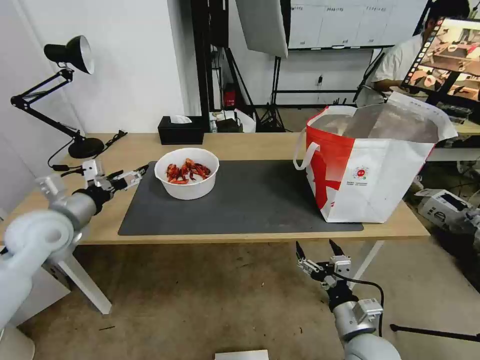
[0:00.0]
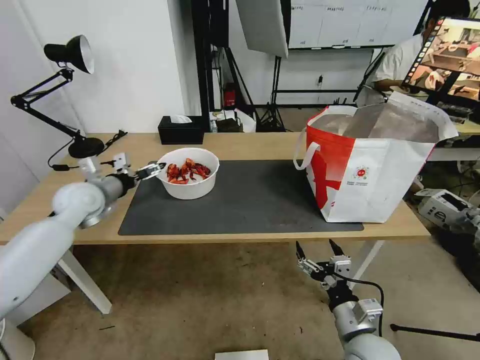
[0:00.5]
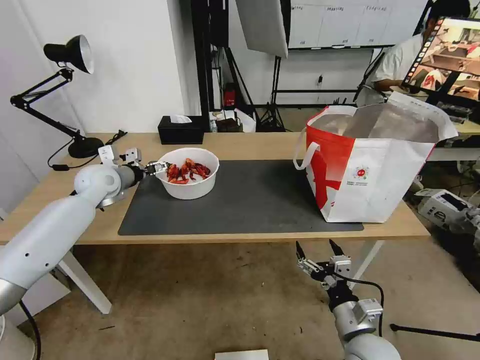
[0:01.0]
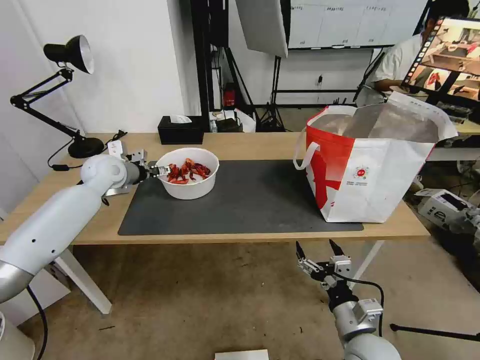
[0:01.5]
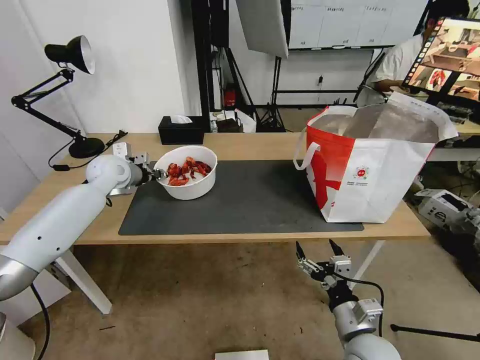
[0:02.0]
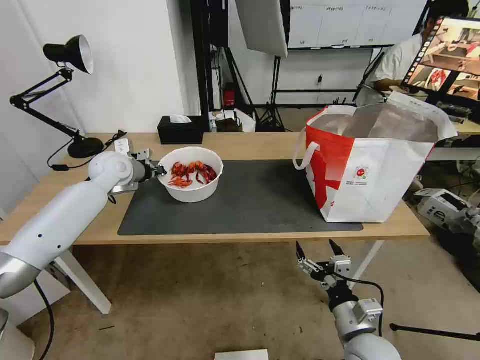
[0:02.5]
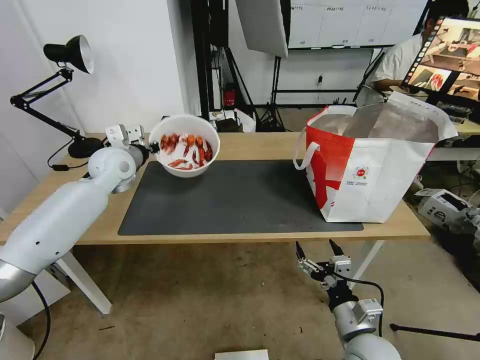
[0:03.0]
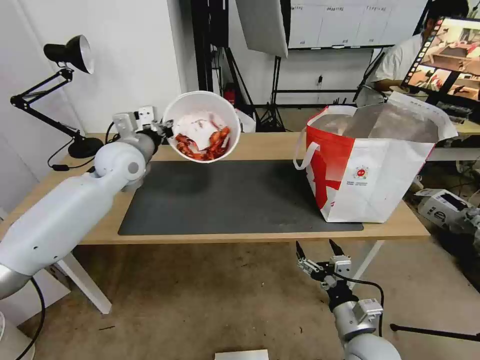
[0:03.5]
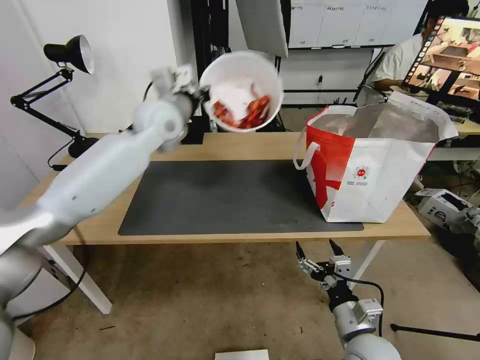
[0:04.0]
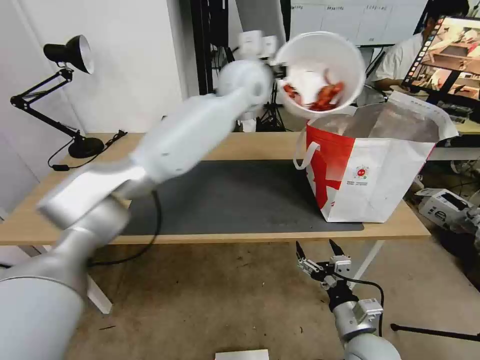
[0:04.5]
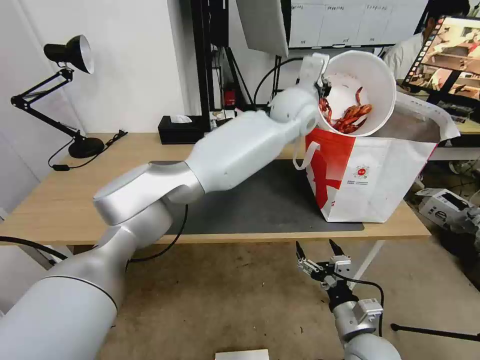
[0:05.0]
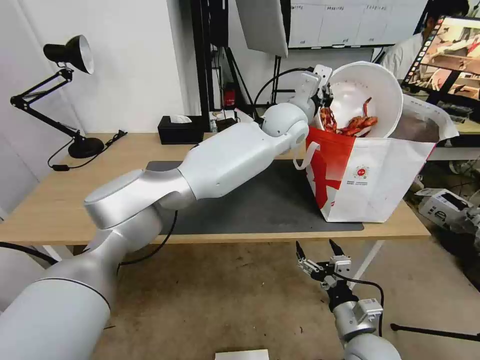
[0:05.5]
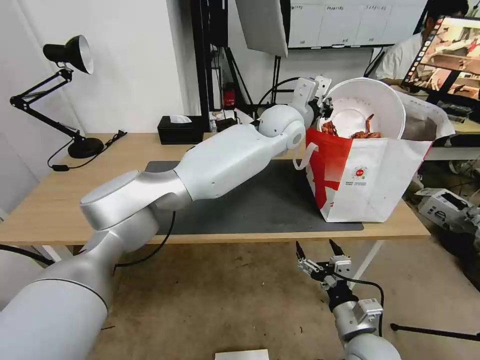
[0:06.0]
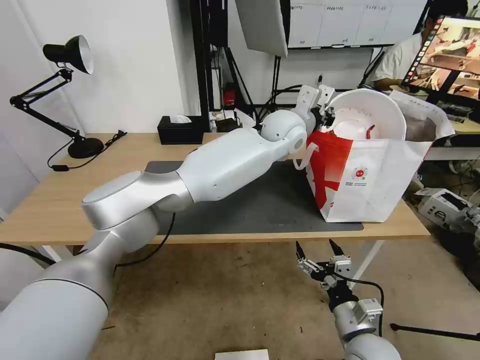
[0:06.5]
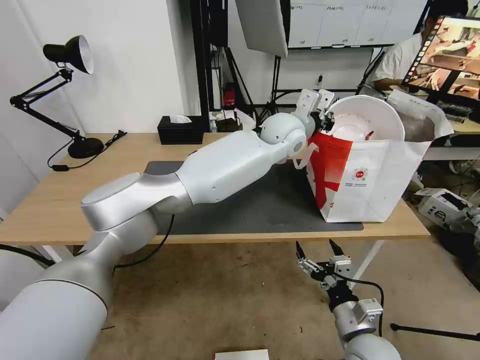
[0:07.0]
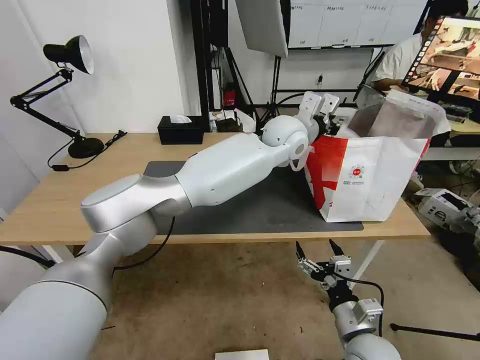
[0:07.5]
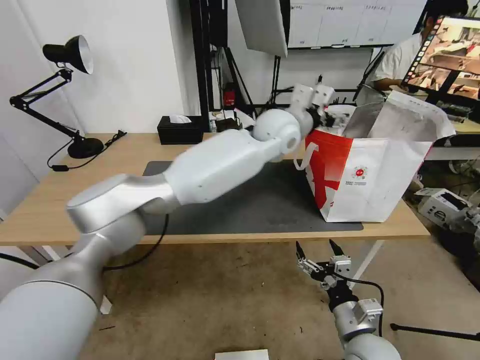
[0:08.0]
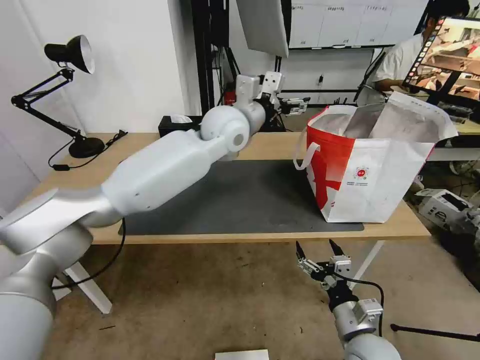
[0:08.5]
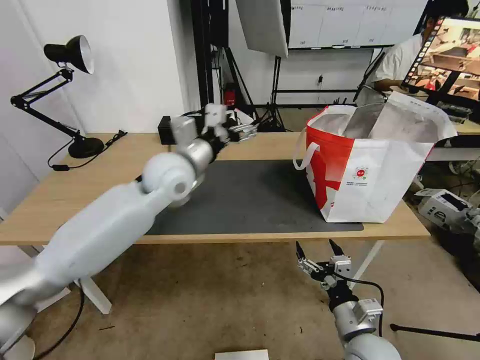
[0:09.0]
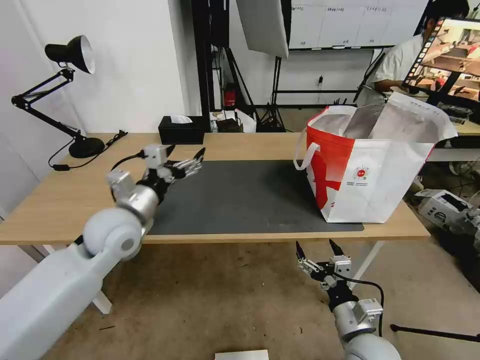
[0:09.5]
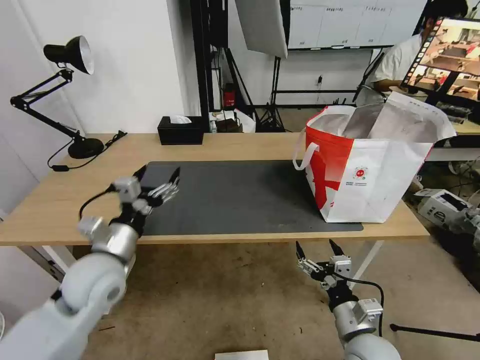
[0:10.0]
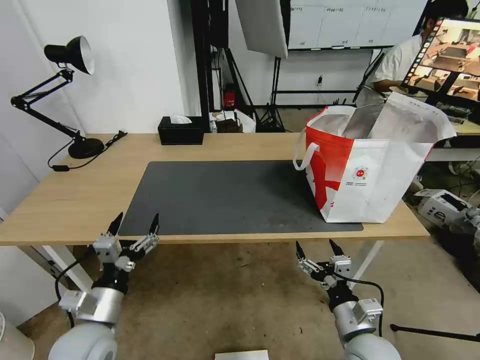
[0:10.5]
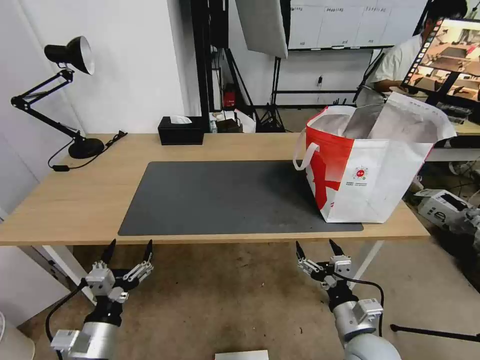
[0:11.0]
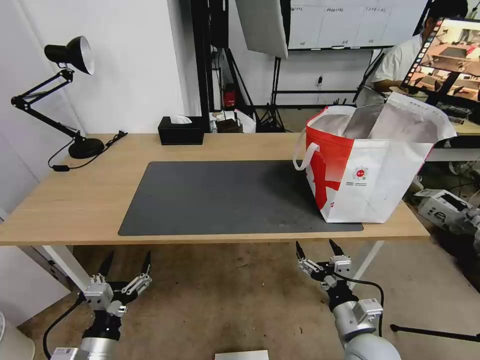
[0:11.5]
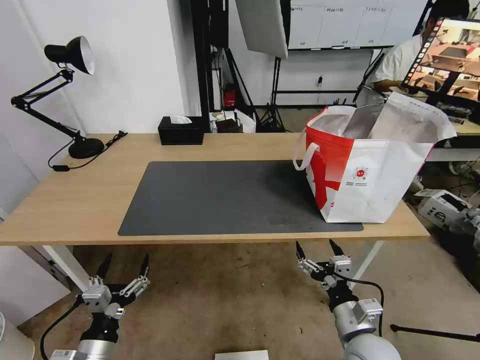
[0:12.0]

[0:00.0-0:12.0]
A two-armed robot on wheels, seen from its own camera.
Task of the whole recording: Pick up the trash from the table and place it into the takeout bag.
0:00.0 to 0:02.0: The left gripper moves forward, approximately 20 cm, and closes its fingers.
0:02.0 to 0:04.0: The left gripper travels to the right and upward by some 20 cm, and closes its fingers.
0:04.0 to 0:06.0: The left gripper travels to the right by about 25 cm.
0:06.0 to 0:08.0: The left gripper opens.
0:08.0 to 0:10.0: The left gripper travels to the left, backward and downward by some 50 cm.
0:10.0 to 0:12.0: The left gripper moves backward and downward, roughly 20 cm.

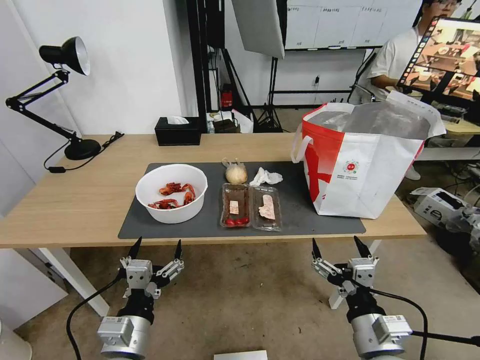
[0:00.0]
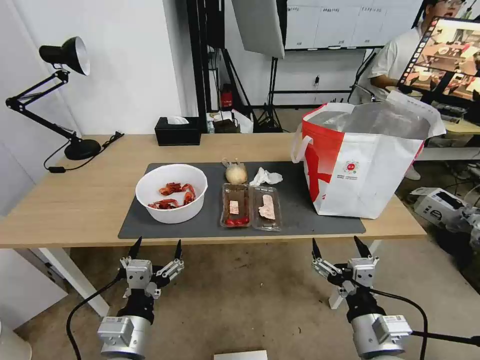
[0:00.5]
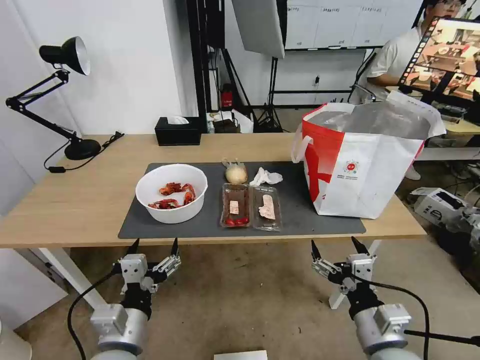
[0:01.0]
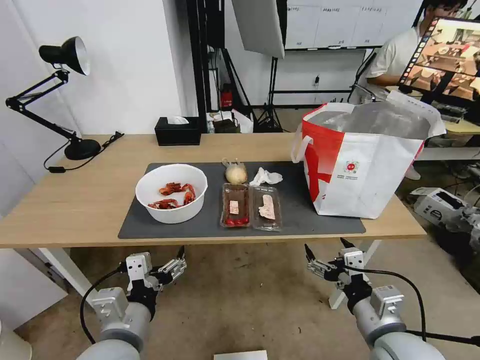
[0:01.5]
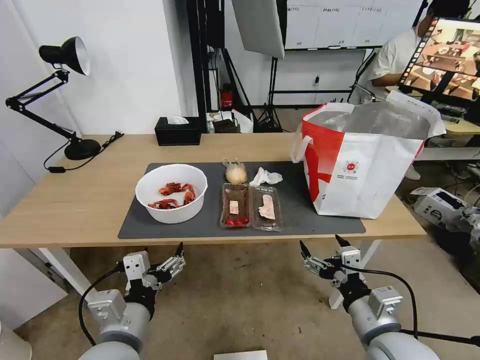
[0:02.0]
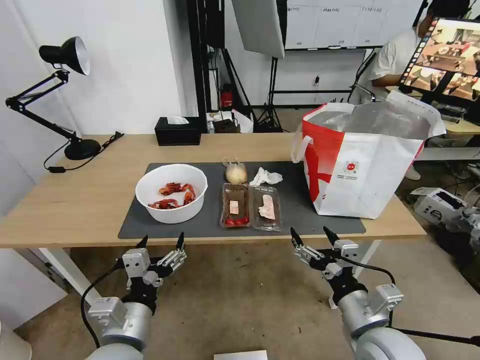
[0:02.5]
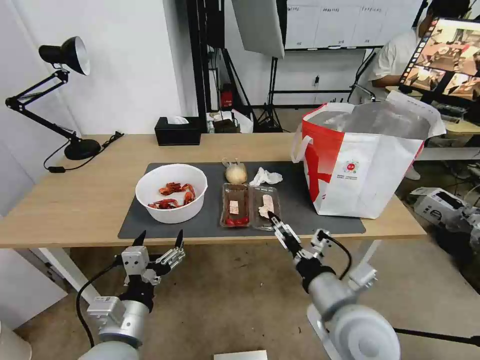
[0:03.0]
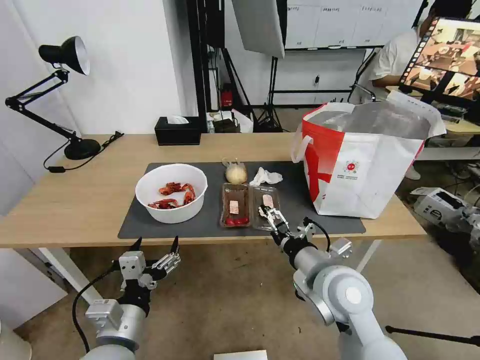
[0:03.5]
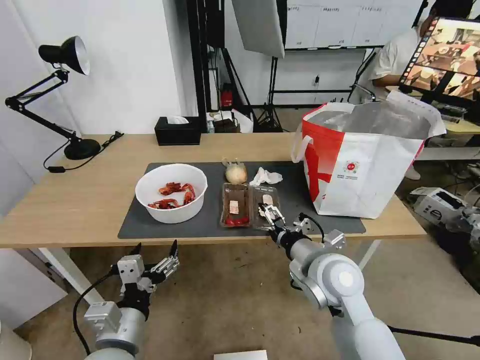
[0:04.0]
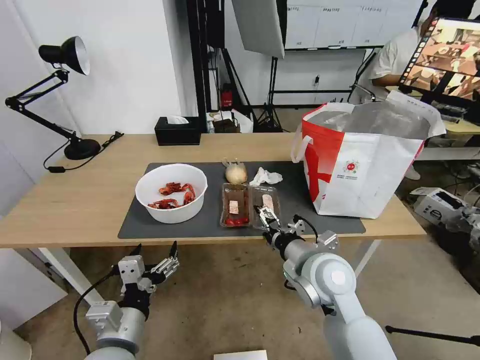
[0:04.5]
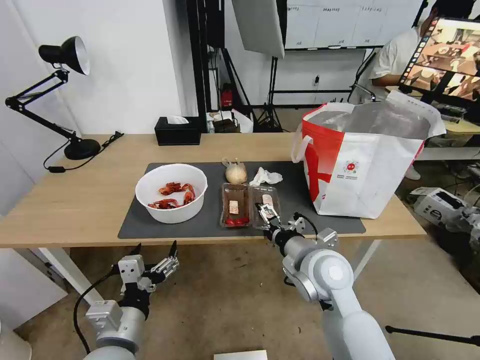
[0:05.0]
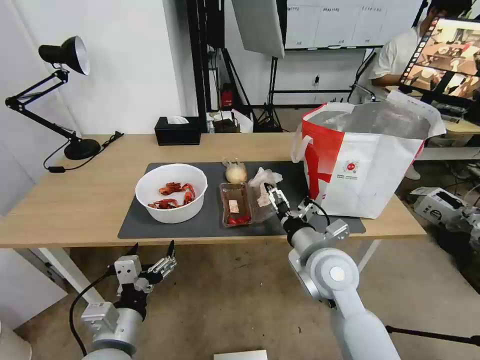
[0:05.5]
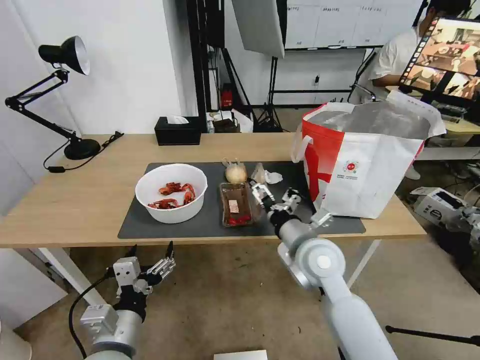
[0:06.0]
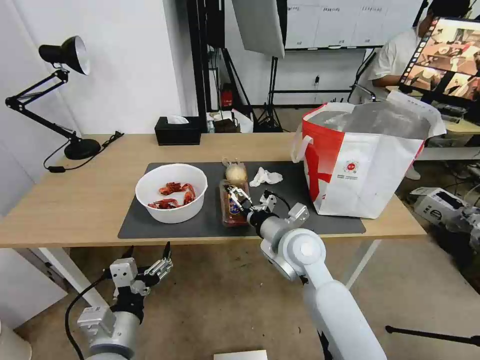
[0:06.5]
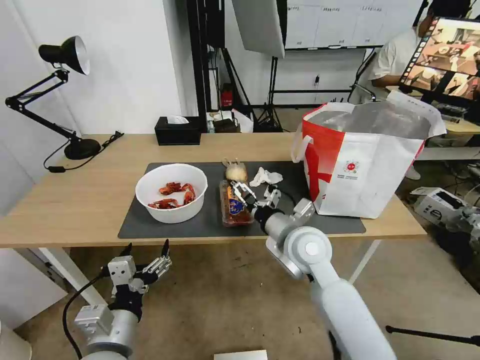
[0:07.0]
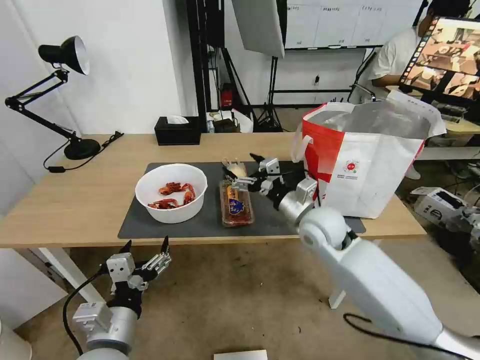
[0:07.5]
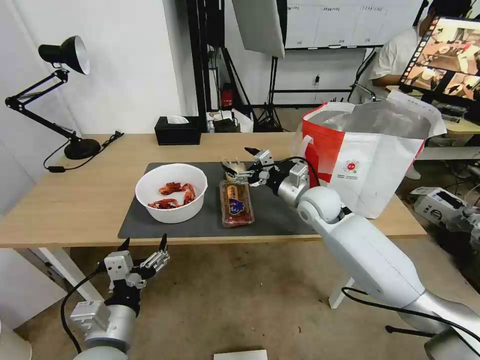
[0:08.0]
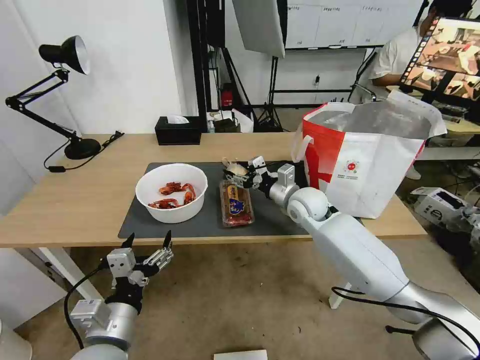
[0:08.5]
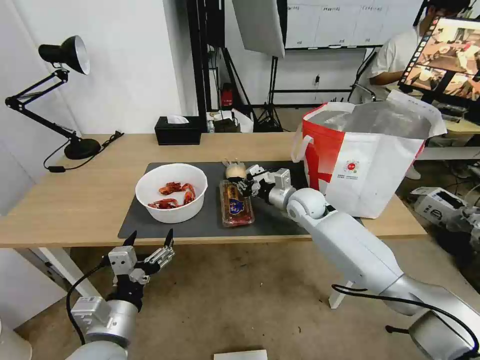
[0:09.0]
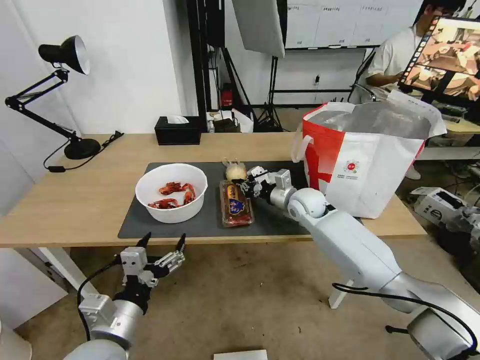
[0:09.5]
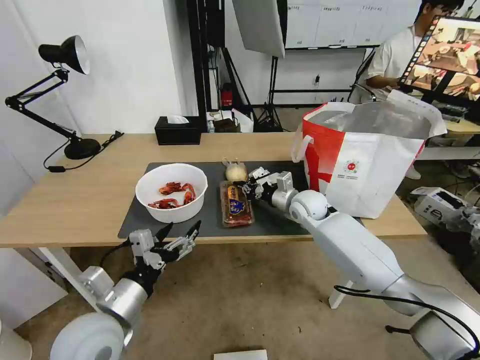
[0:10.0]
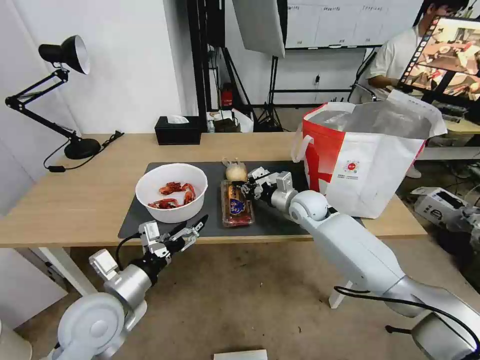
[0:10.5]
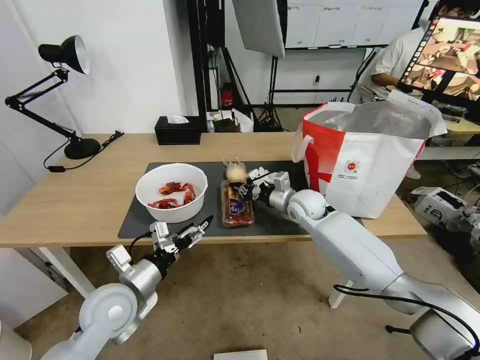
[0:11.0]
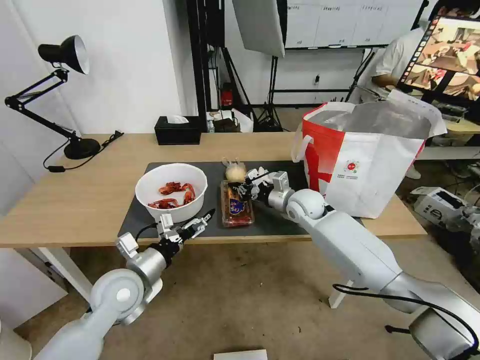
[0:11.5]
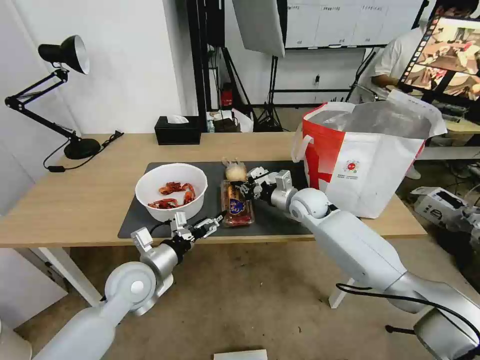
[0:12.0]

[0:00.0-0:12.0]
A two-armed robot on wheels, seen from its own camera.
Task of the whole recording: Pick up the trash from the table and place it into the takeout bag.
0:02.0 to 0:04.0: The right gripper shifts approximately 15 cm forward and to the left.
0:04.0 to 0:06.0: There are only small adjustments of the grippers.
0:06.0 to 0:08.0: The right gripper heads forward, covering approximately 15 cm.
0:08.0 to 0:10.0: The left gripper changes place by roughly 5 cm. The right gripper is displaced downward by about 5 cm, and closes up.
0:10.0 to 0:12.0: The left gripper moves forward, roughly 10 cm.

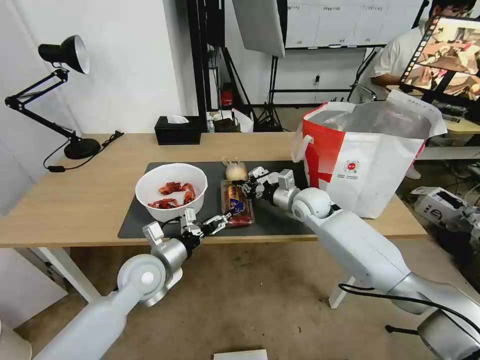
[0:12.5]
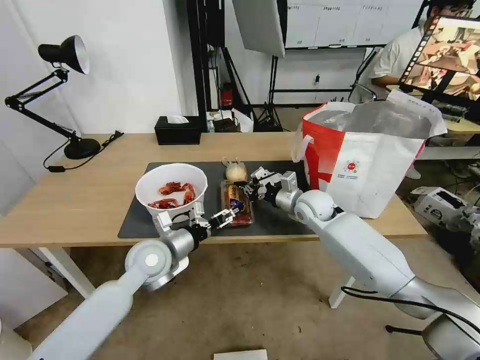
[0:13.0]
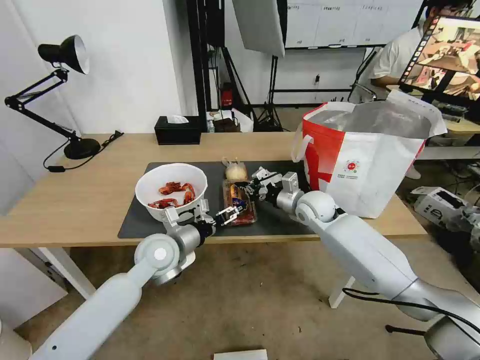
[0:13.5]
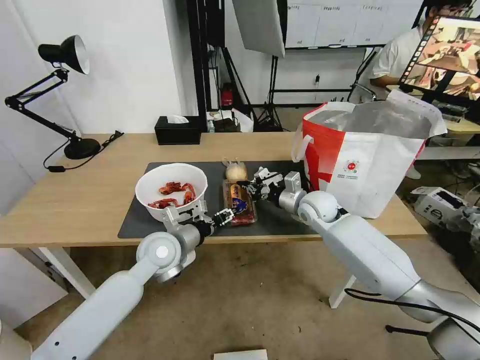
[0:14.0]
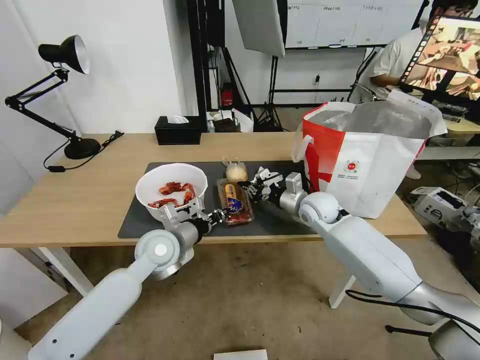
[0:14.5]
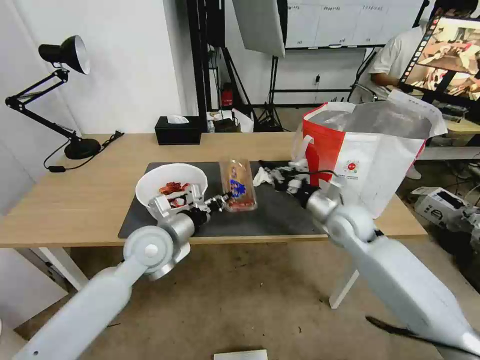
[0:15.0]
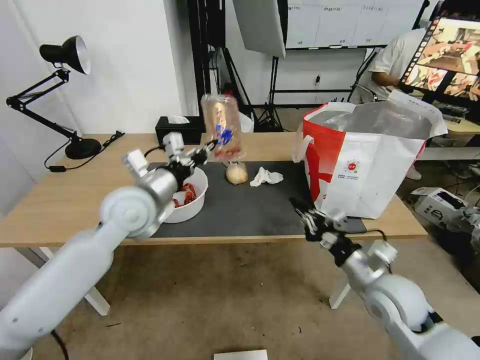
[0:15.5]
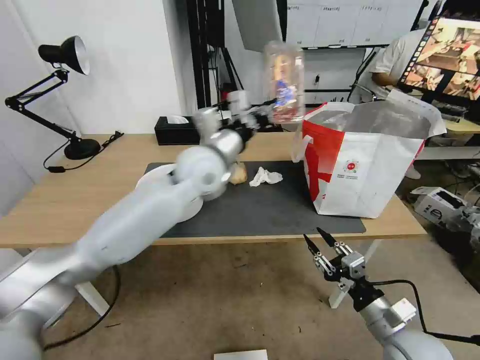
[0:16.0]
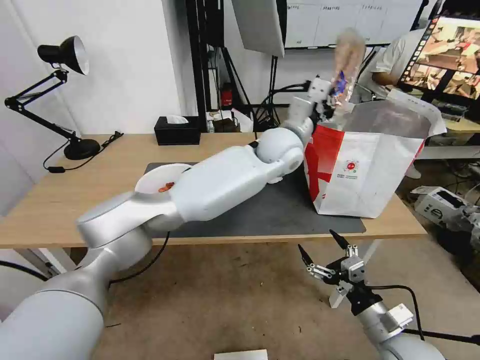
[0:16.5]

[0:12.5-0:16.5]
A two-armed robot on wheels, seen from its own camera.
Task of the whole recording: Pick up the trash from the table and place it into the takeout bag.
0:12.5 to 0:14.5: The left gripper changes place by roughly 5 cm, and closes up.
0:14.5 to 0:16.5: The left gripper heads to the right, upward and forward, covering about 35 cm, while the right gripper travels backward by roughly 30 cm, and opens up.
